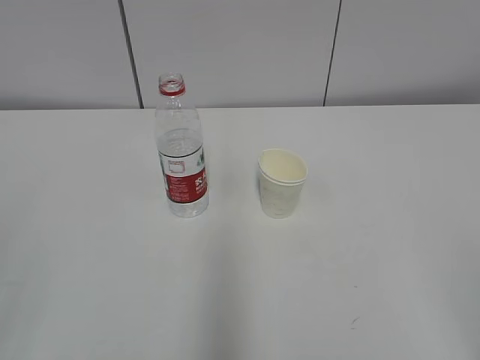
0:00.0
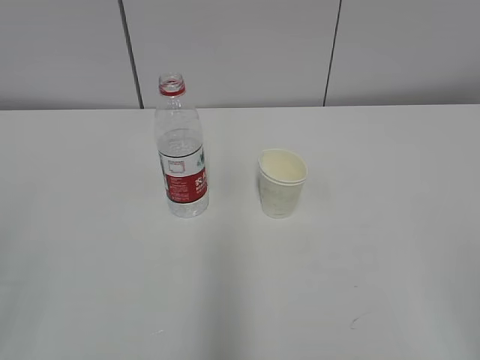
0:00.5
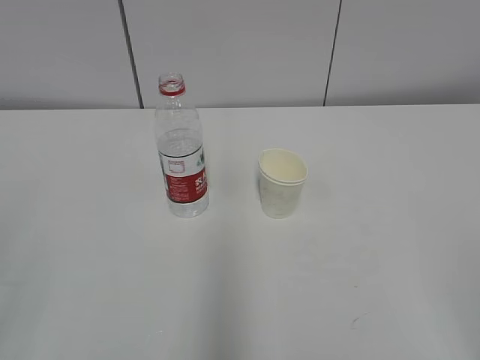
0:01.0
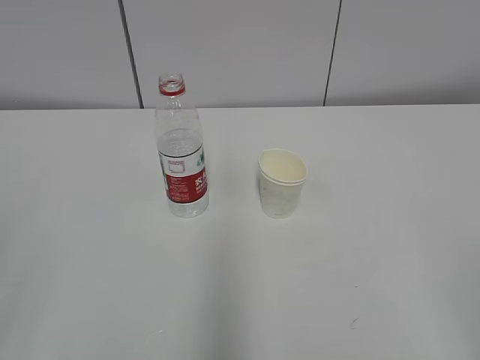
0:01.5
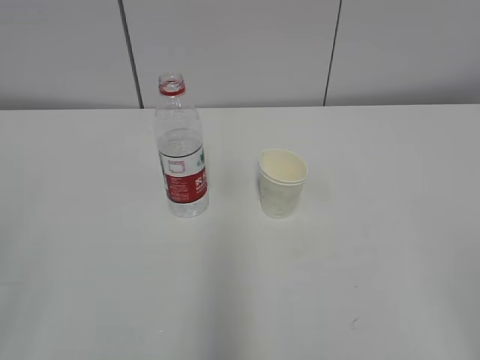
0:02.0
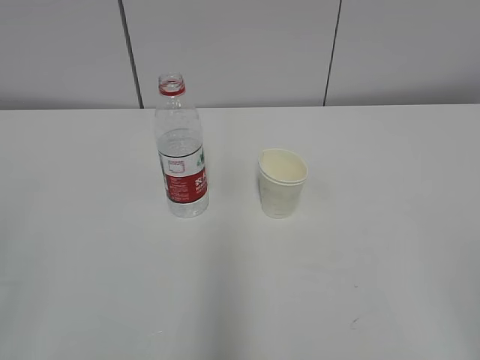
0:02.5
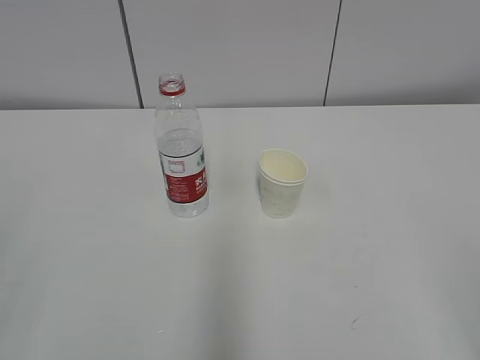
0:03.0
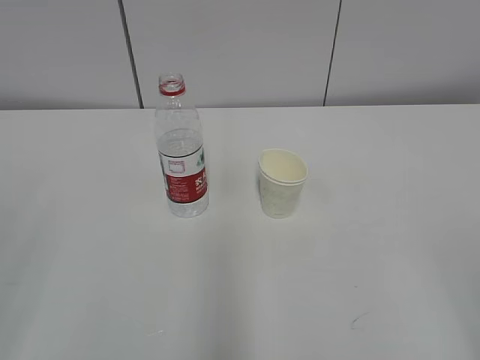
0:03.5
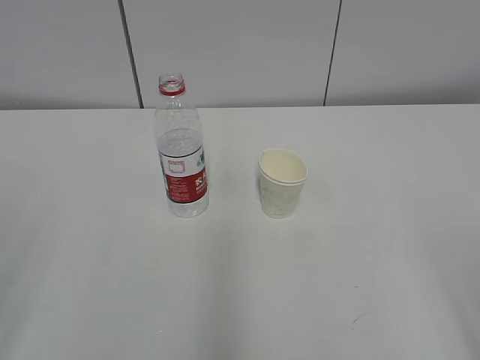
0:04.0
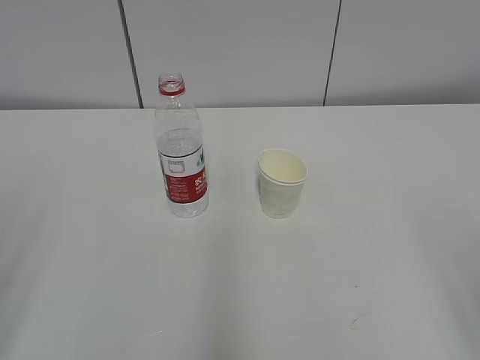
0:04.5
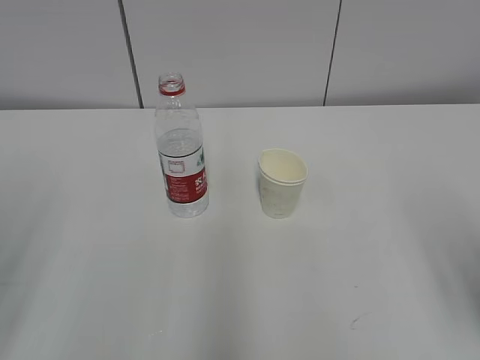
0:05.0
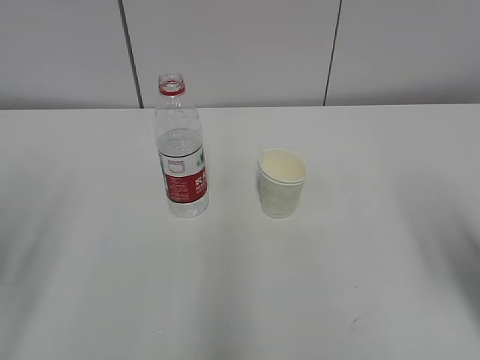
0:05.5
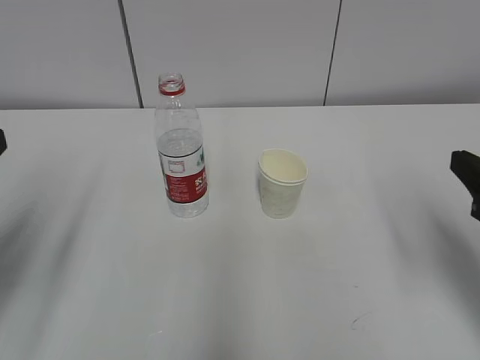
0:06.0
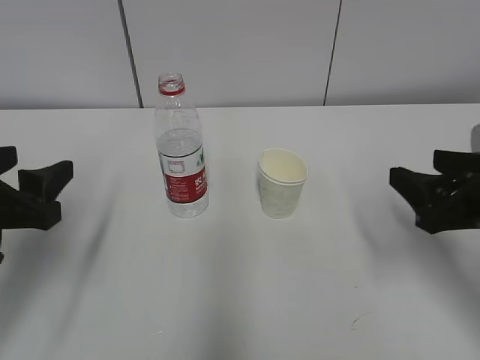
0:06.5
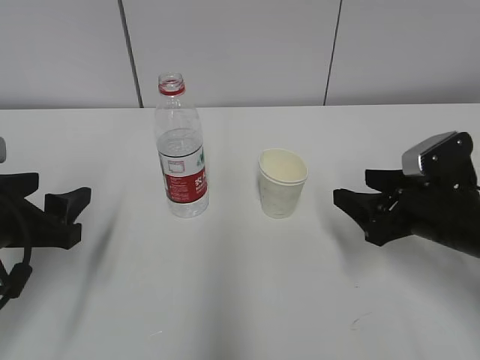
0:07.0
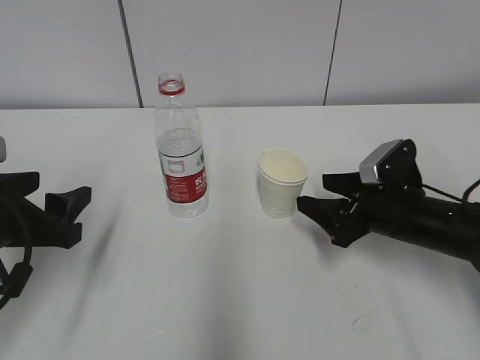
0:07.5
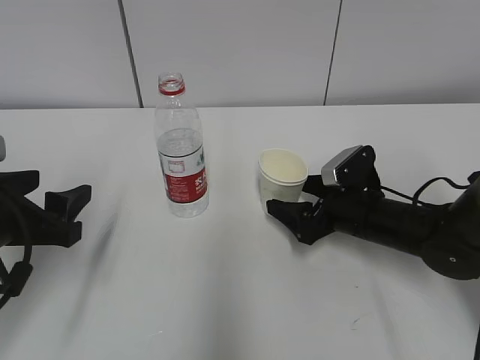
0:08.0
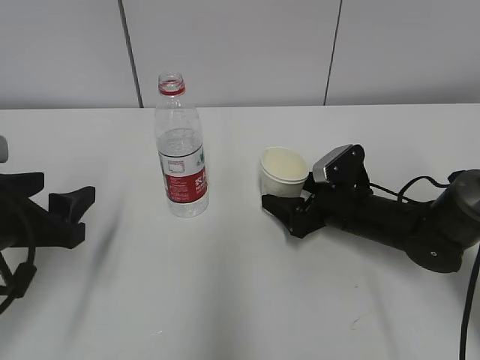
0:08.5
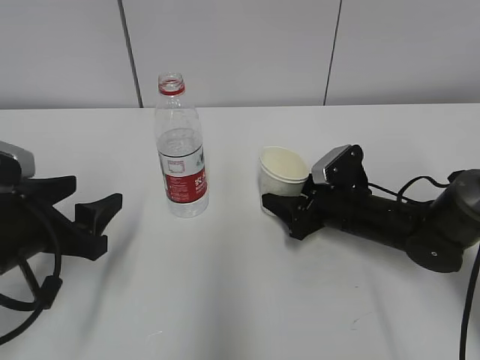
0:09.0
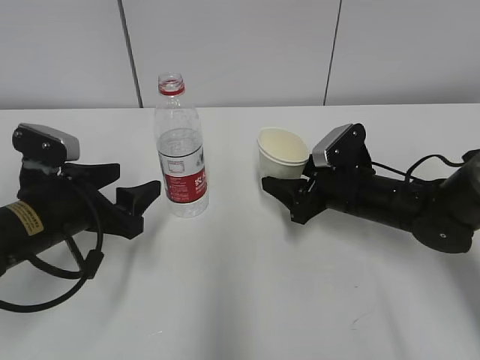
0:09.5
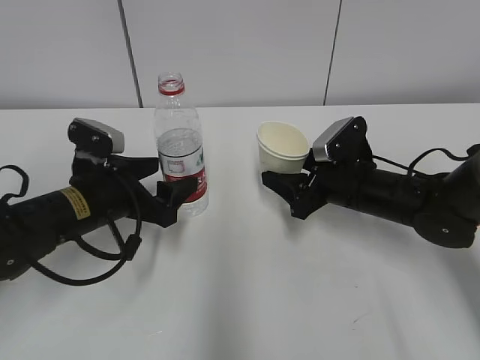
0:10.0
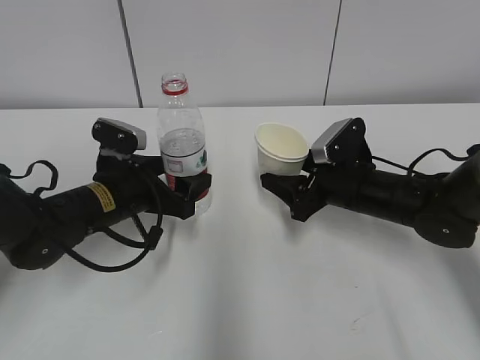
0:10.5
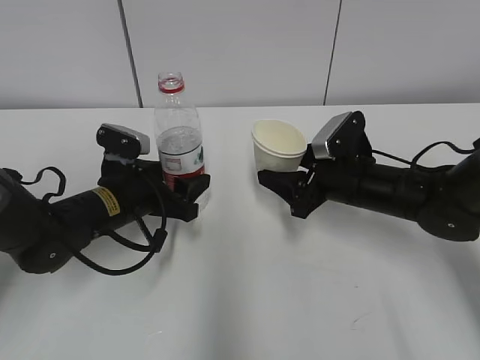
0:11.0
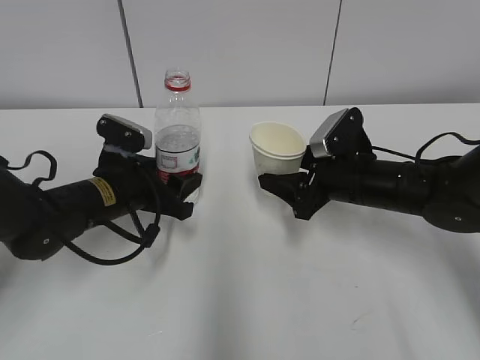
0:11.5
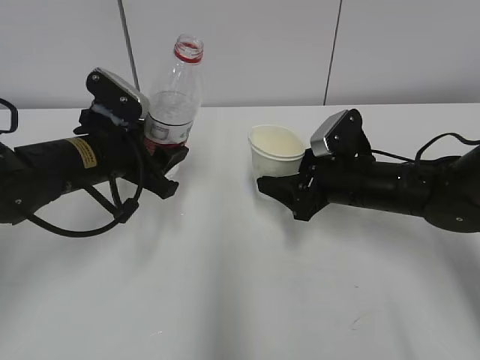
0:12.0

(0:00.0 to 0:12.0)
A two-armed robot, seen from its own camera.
Step, 0:00.0 - 0:07.0: Grab the paper cup with the right hand.
Step, 0:07.5 - 0:09.0: Grab the water bottle with the left hand.
0:04.0 - 0:06.0: The grippers both shift forward by about 15 cm.
0:06.0 - 0:08.0: The left gripper moves downward and forward, about 10 cm. The right gripper heads forward, downward and to the left, covering roughly 25 cm, and opens.
0:08.0 - 0:10.0: The right gripper closes up, while the left gripper shifts some 10 cm forward, to the right and downward.
0:10.0 - 0:12.0: The left gripper changes place by some 5 cm, and closes up.

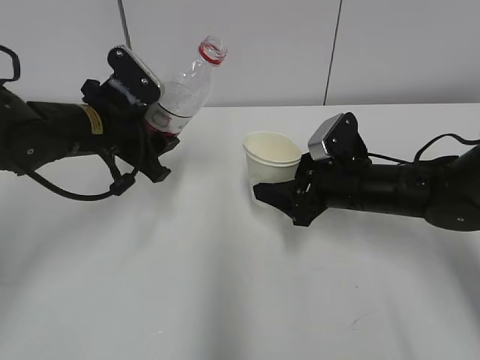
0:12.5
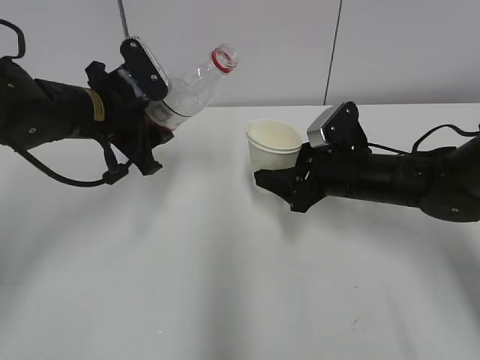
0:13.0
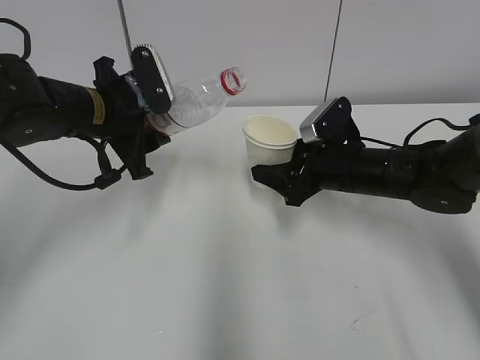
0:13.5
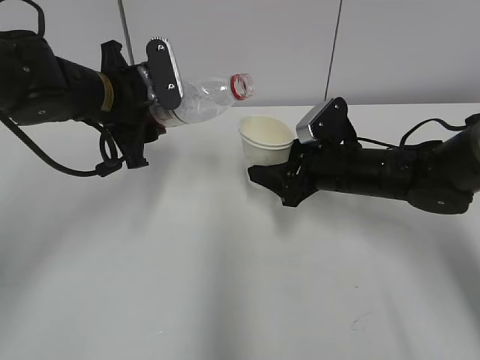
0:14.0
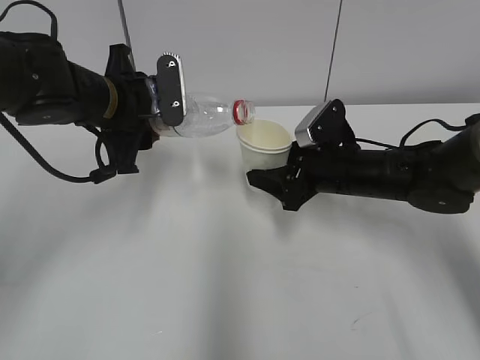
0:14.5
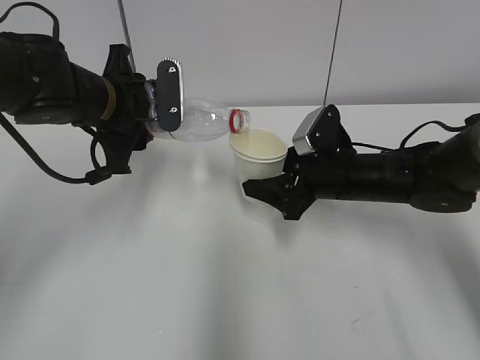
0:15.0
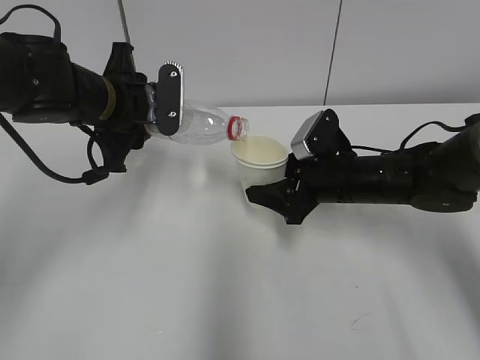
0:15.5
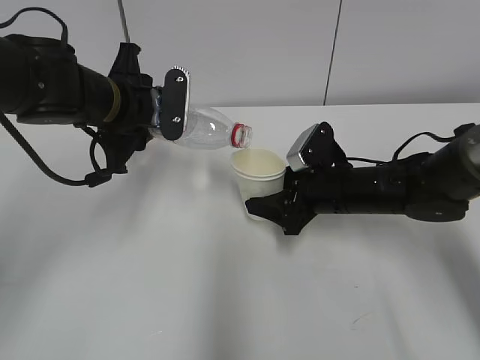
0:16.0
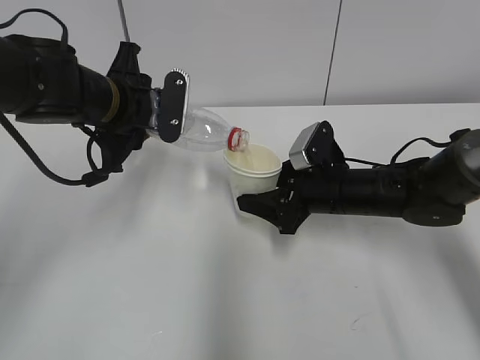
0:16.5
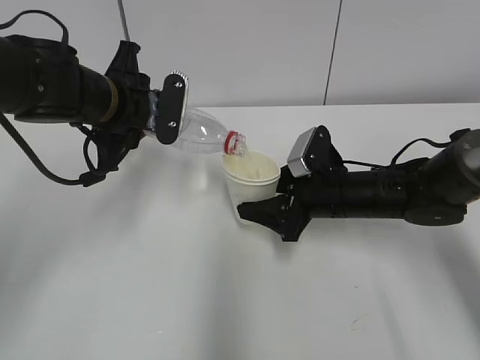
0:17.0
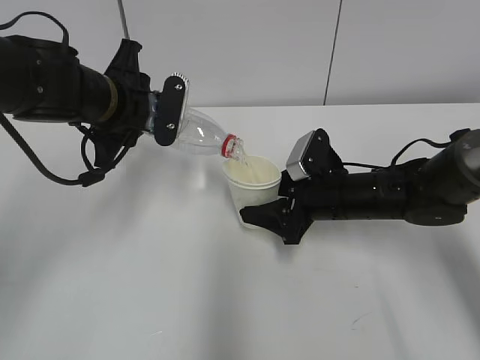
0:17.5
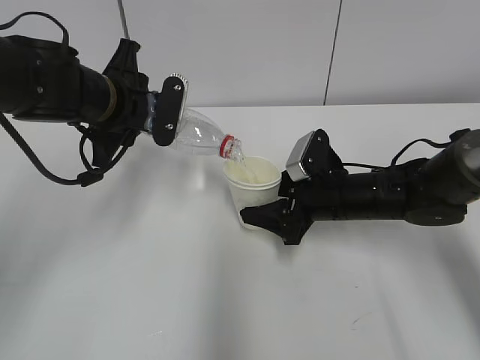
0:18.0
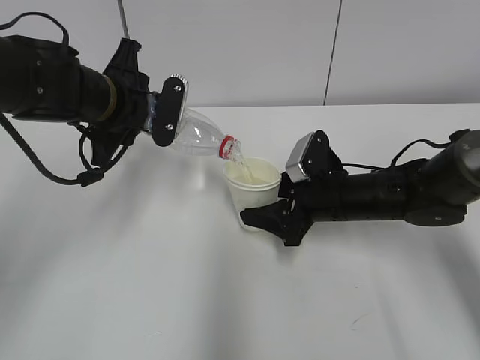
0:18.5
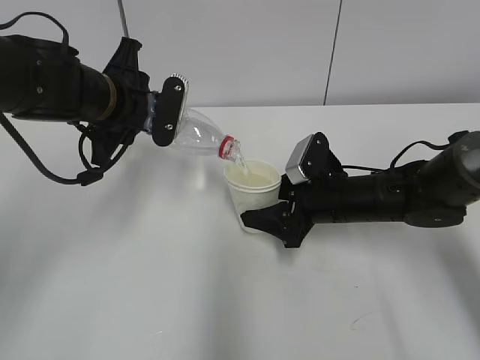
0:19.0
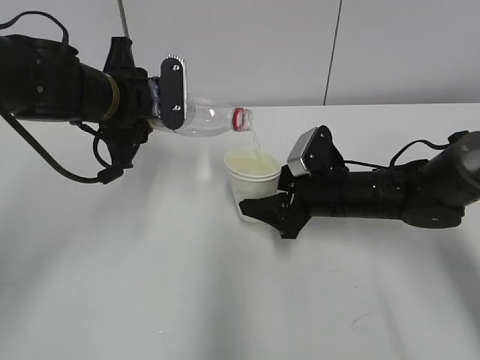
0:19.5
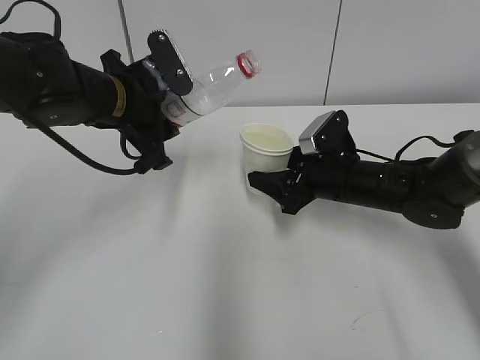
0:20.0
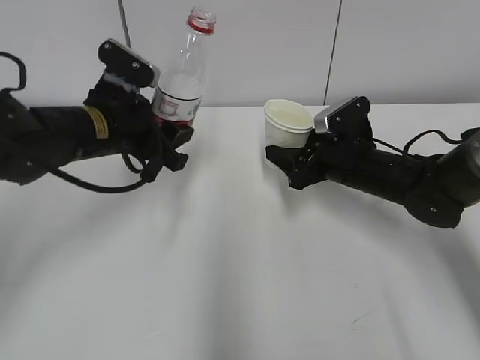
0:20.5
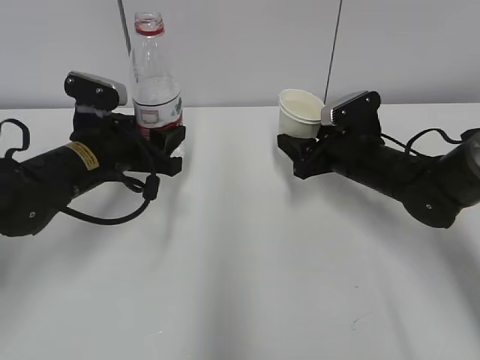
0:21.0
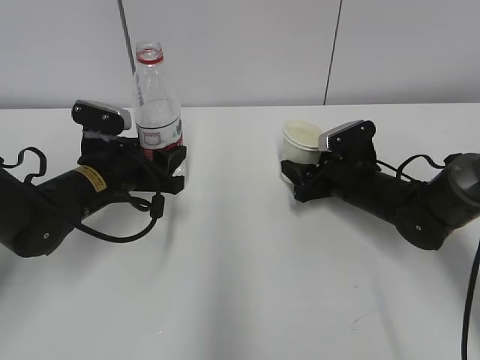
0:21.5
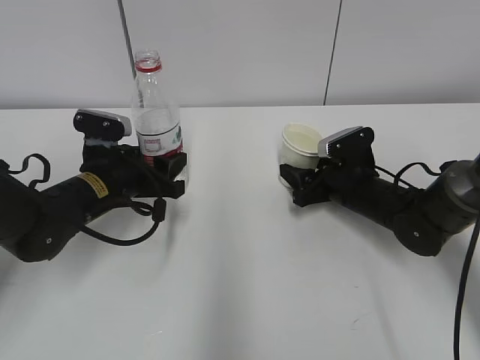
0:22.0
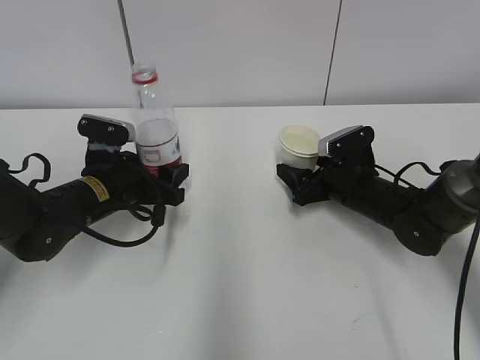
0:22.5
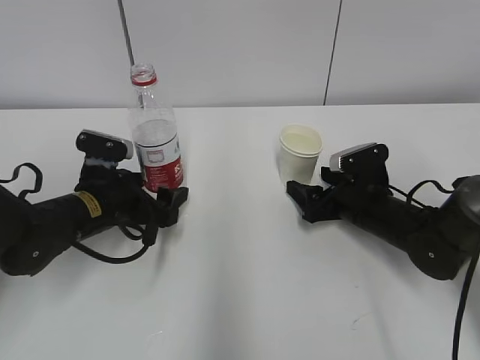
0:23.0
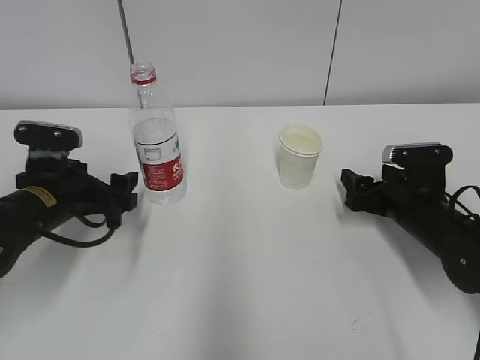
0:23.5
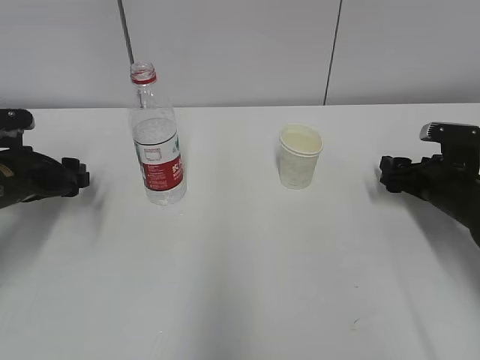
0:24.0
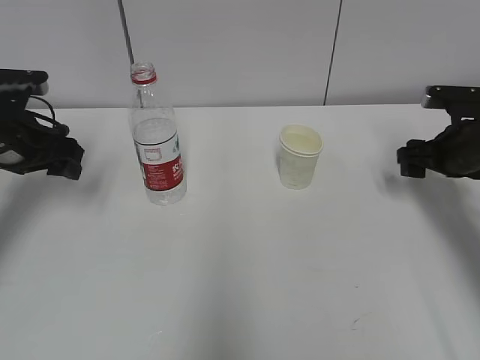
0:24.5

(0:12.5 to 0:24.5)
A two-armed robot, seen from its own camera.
Step, 0:13.5 - 0:16.0: Fill water with the right hand.
Step, 0:13.5 - 0:16.0: Pour water with the left hand.
Step, 0:16.5 - 0:17.0: Collect water with the left hand.
Step, 0:17.5 - 0:18.5: Place the paper cup with the right hand.
Step, 0:17.5 - 0:18.5: Place the water bottle with the left hand.
0:14.5 - 0:16.5: The grippers make only small movements.
0:16.5 - 0:18.5: The grippers move only a little.
0:20.5 - 0:22.5: The right gripper moves roughly 5 cm, and opens. The left gripper goes roughly 10 cm downward, and opens up.
0:22.5 - 0:24.5: The right gripper is displaced to the right and upward by some 15 cm. The left gripper travels to the left and upward by some 15 cm, and opens its fingers.

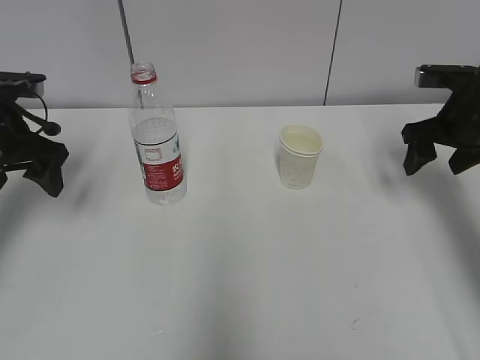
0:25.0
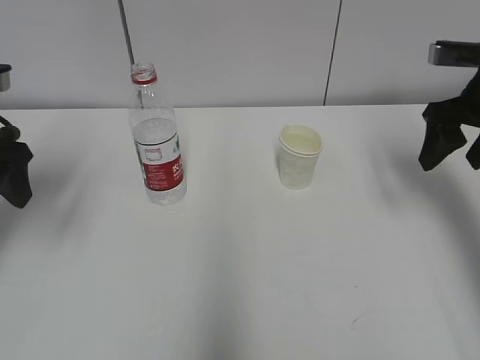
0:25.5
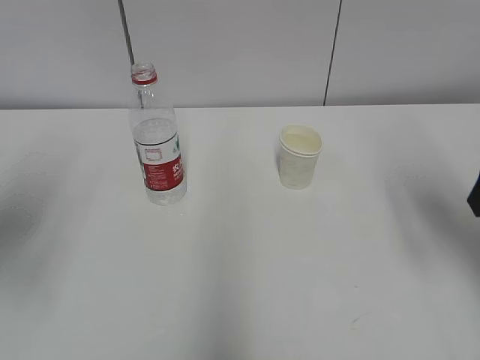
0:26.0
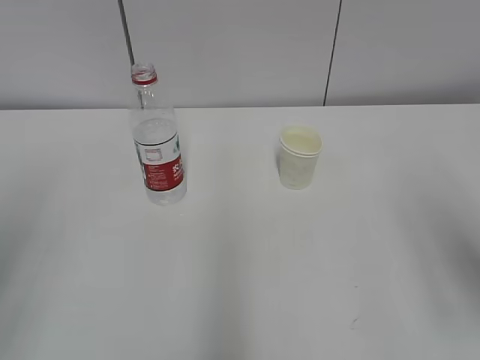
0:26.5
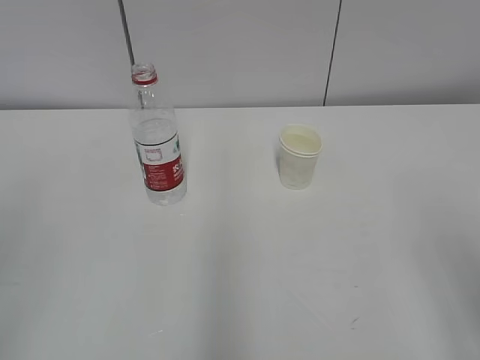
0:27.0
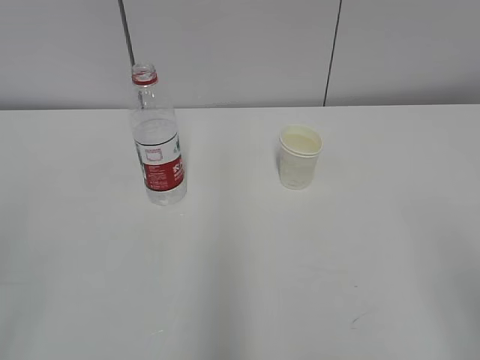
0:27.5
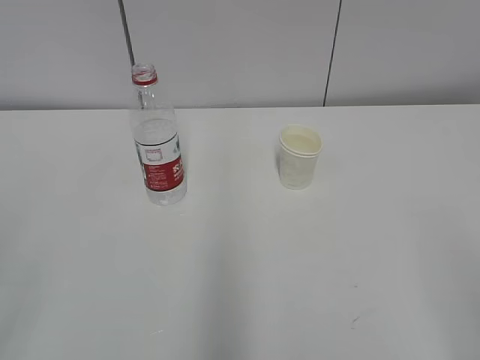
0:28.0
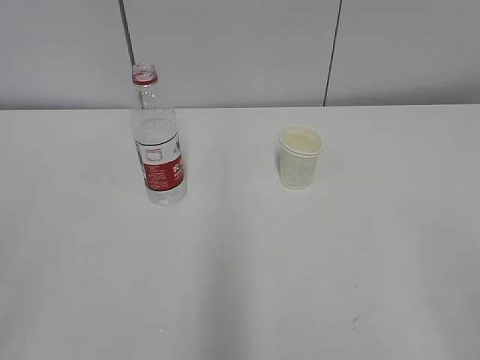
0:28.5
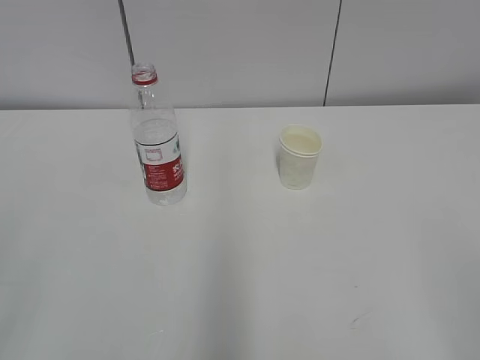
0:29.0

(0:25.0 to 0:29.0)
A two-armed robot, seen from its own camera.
0:25.0 - 0:27.0: Both grippers move backward, some 30 cm.
